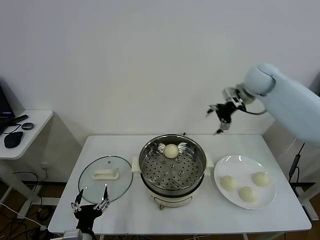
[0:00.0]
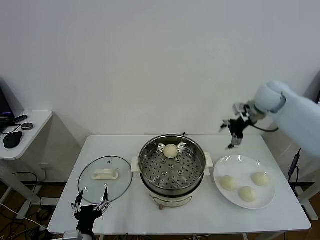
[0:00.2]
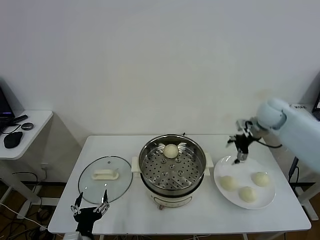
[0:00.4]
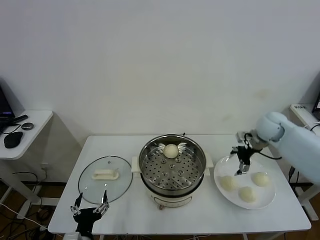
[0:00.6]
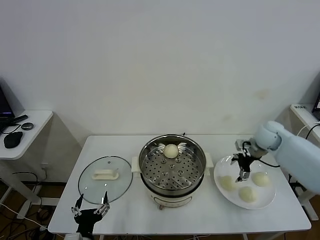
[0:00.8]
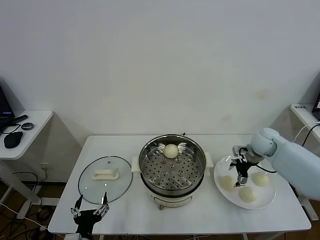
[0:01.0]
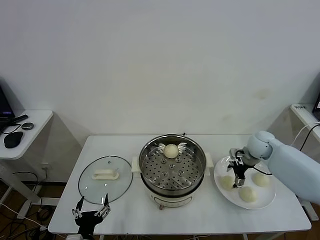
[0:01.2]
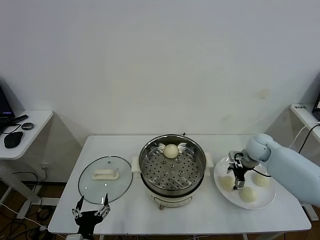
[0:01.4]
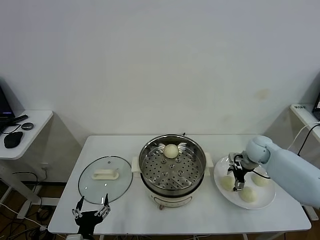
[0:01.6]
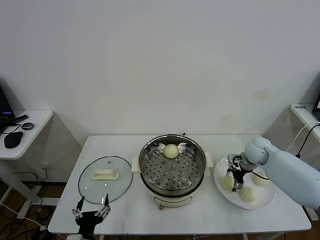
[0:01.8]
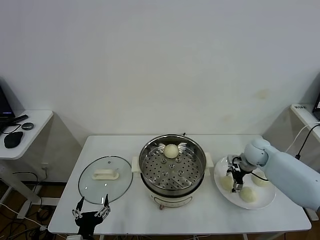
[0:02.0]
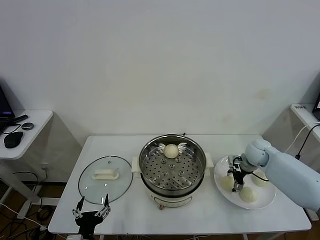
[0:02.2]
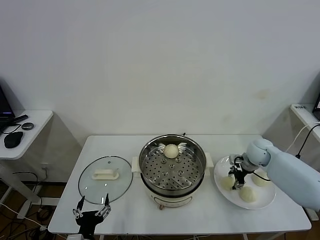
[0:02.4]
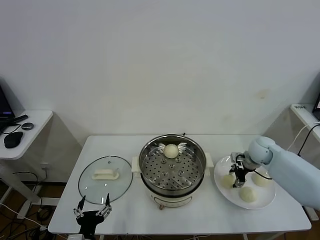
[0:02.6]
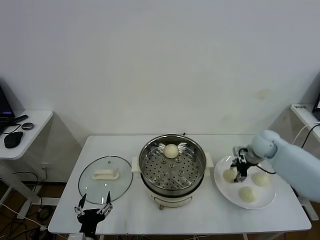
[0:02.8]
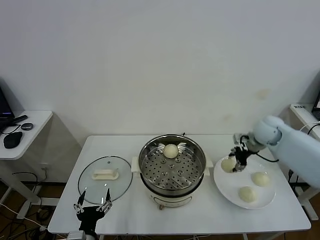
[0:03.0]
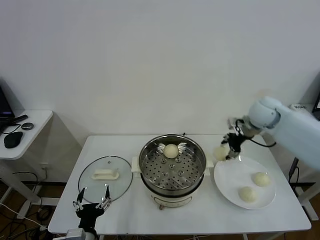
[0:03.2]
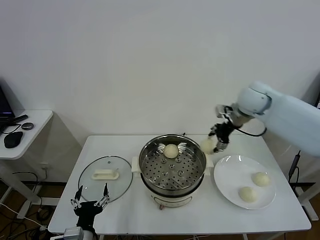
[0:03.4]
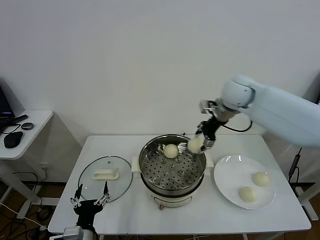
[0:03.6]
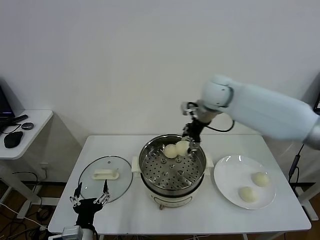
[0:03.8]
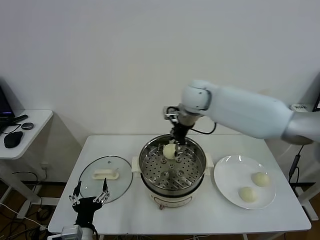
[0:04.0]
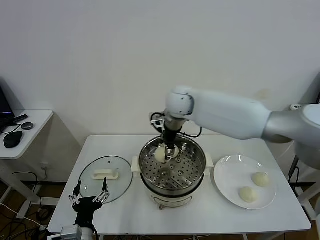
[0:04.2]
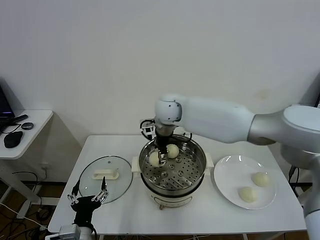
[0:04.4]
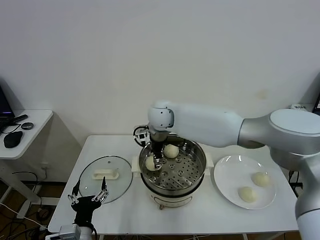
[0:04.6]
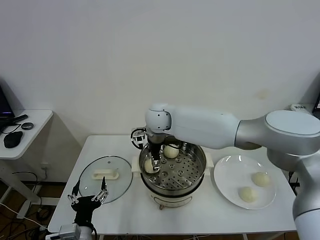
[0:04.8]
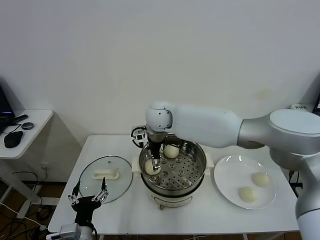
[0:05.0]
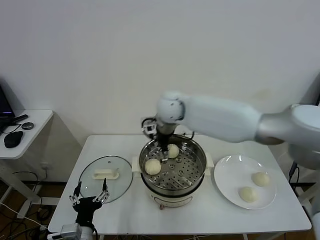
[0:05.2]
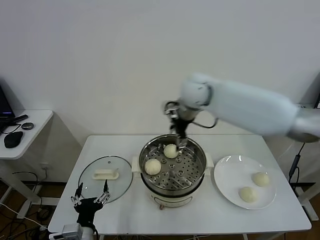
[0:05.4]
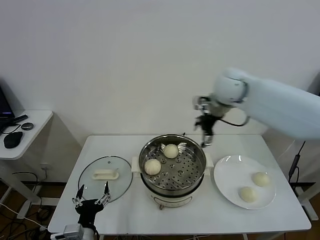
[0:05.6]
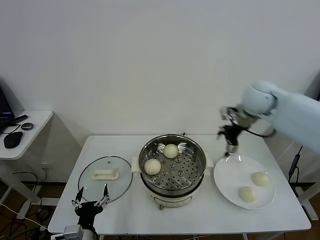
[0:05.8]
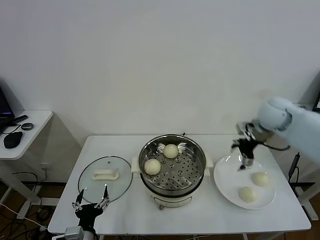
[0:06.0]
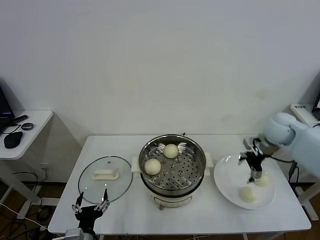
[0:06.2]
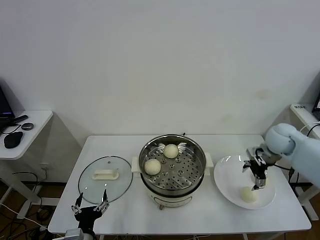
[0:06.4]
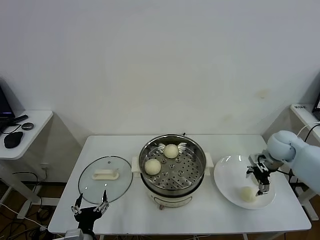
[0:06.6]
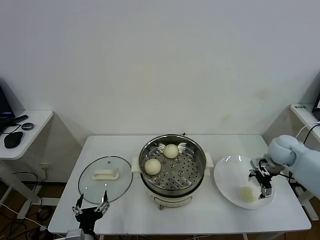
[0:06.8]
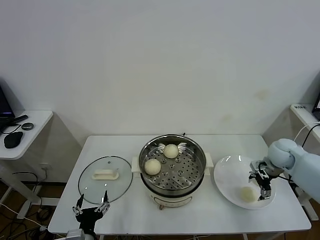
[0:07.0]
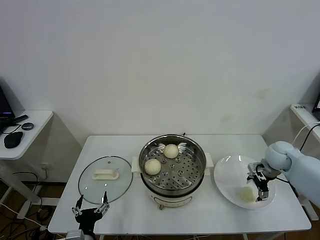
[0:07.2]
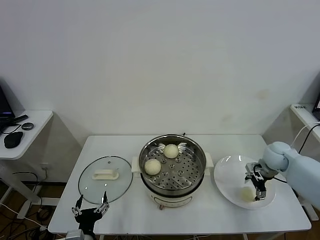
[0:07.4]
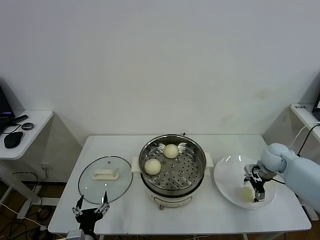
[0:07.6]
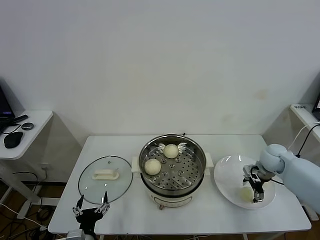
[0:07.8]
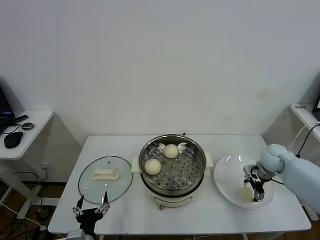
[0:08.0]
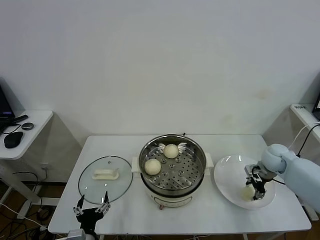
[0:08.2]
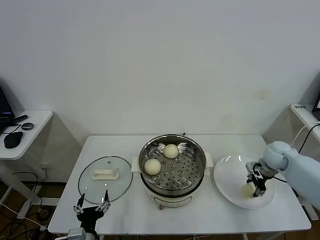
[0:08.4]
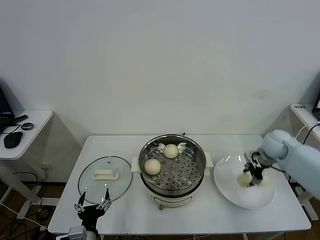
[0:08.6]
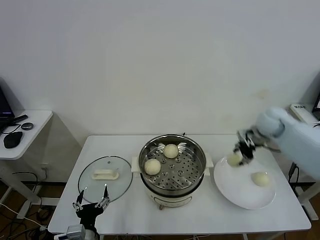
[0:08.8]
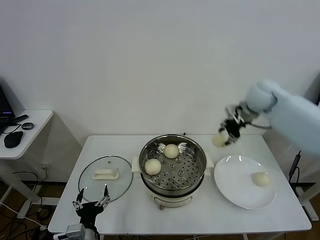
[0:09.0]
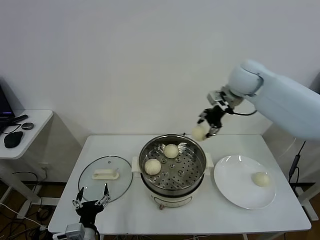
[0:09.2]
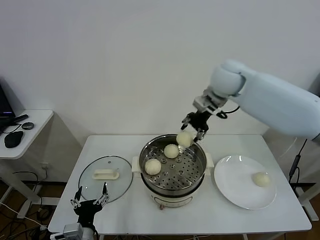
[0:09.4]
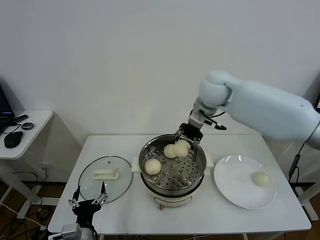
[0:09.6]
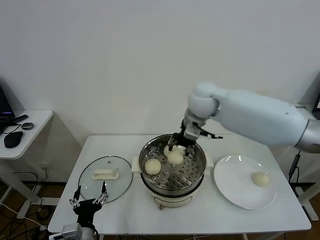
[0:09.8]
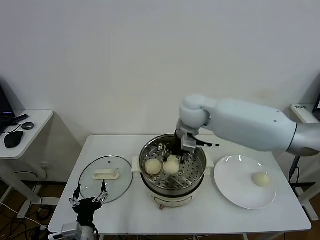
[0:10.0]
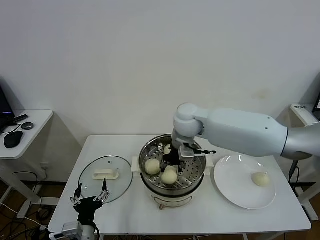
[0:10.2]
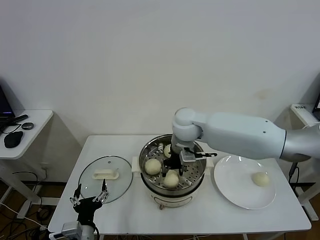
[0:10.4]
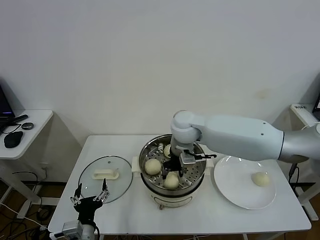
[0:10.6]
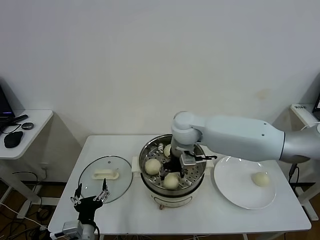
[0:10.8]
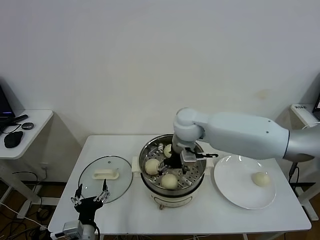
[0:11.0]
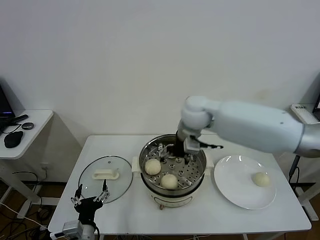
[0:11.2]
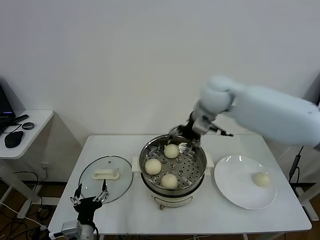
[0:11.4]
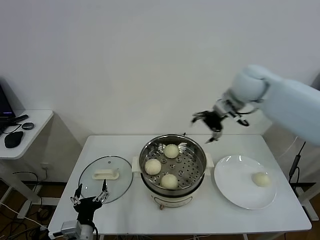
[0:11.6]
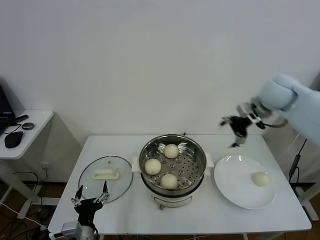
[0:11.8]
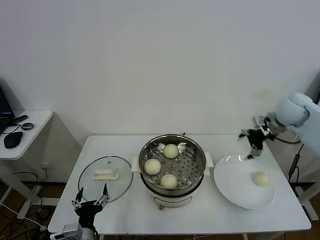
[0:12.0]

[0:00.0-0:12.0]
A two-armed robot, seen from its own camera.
Task of the whole recording: take steamed baozi put them in steamer.
Step, 0.0 to 2.4 s: Grasp the baozi in the plate with right gripper.
Step, 2.6 to 5.0 s: Place the baozi on the steamer with right gripper.
Step, 5.2 to 8.2 s: Grasp the baozi in the plate with right gripper.
Step, 8.4 to 11.2 s: Place the baozi on the steamer with right gripper.
0.0 to 1.6 s: The right gripper shifts approximately 25 cm downward.
1.6 to 3.0 s: The right gripper travels upward by roughly 10 cm, and closes.
3.0 to 4.4 s: The right gripper shifts some 35 cm to the left.
4.4 to 6.0 s: The right gripper shifts about 35 cm to the right, and opens its fingers.
6.0 to 7.6 s: The right gripper is displaced downward by about 15 cm.
7.6 to 9.0 s: The right gripper goes about 25 cm upward, to the left and forward, and closes up.
9.0 to 10.4 s: The right gripper travels to the left by some 25 cm.
10.4 to 12.0 s: The right gripper travels to the right by approximately 30 cm, and opens its fingers.

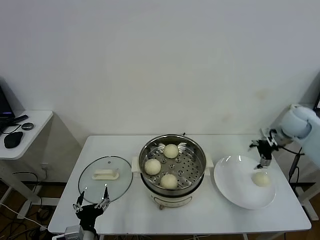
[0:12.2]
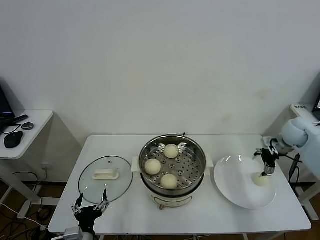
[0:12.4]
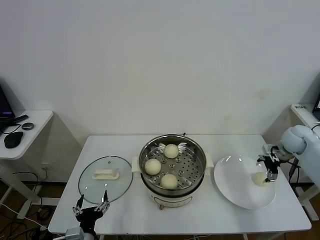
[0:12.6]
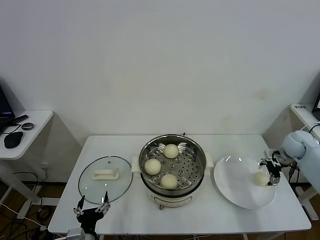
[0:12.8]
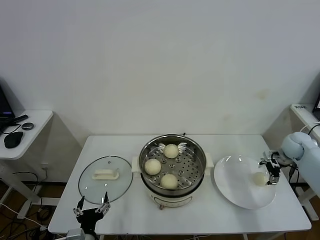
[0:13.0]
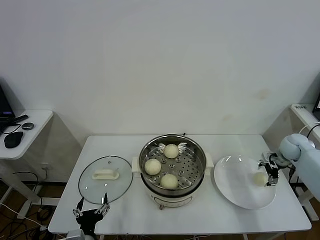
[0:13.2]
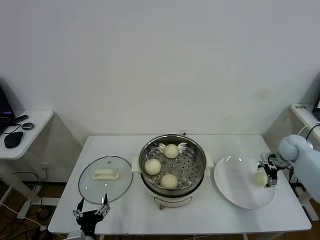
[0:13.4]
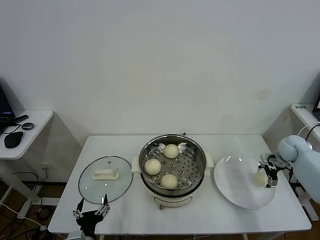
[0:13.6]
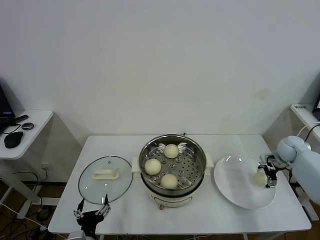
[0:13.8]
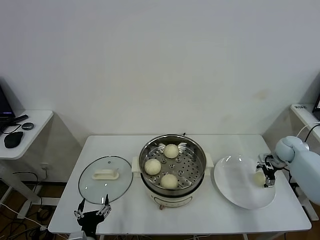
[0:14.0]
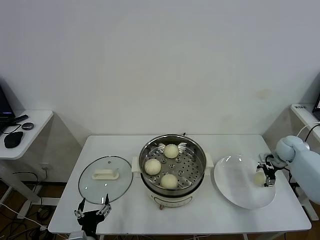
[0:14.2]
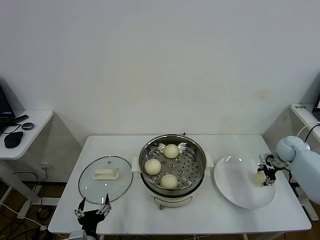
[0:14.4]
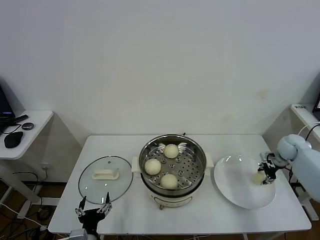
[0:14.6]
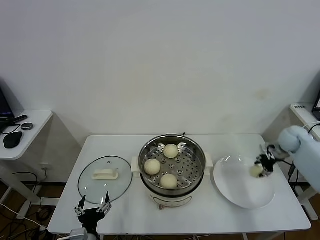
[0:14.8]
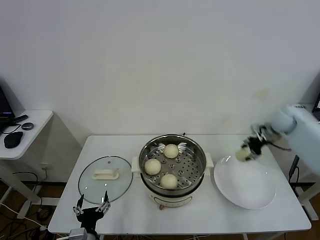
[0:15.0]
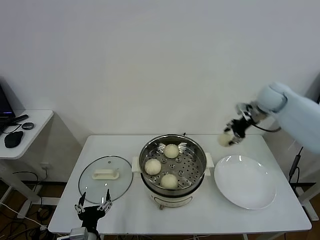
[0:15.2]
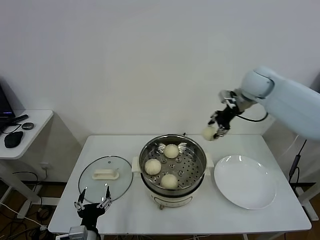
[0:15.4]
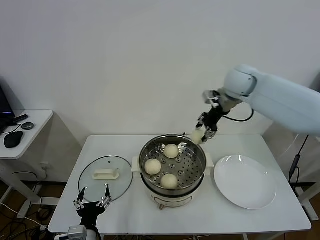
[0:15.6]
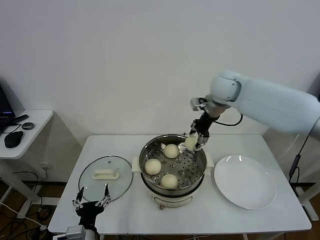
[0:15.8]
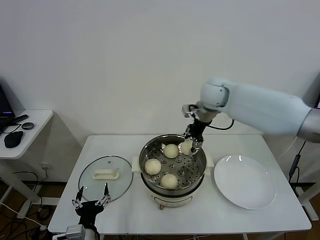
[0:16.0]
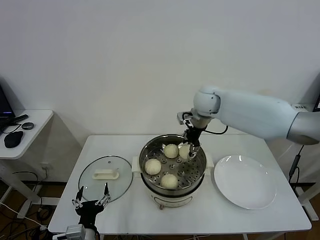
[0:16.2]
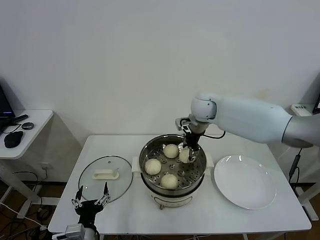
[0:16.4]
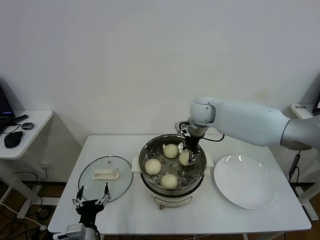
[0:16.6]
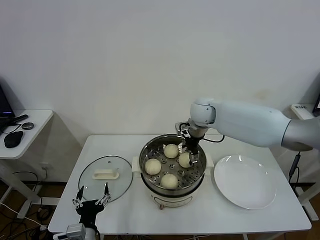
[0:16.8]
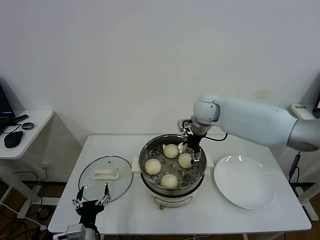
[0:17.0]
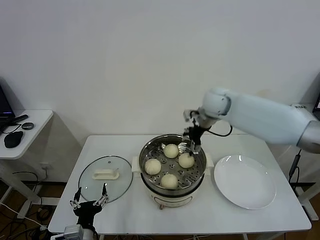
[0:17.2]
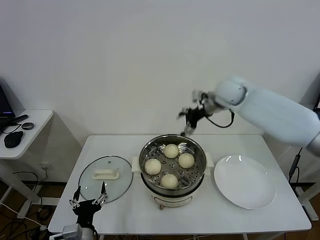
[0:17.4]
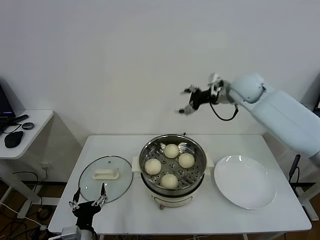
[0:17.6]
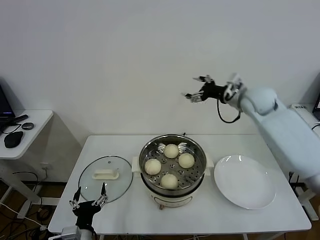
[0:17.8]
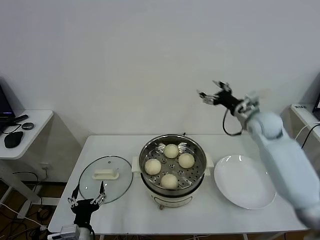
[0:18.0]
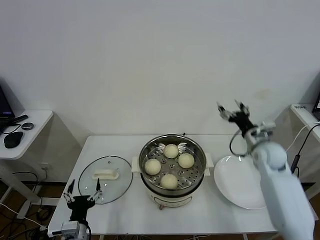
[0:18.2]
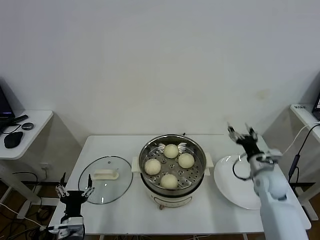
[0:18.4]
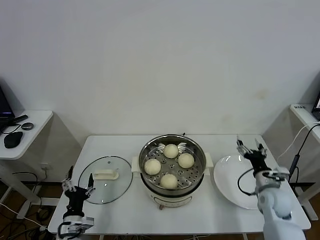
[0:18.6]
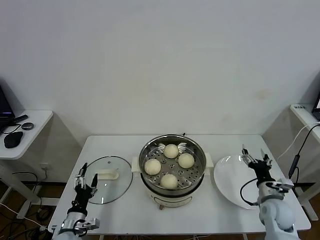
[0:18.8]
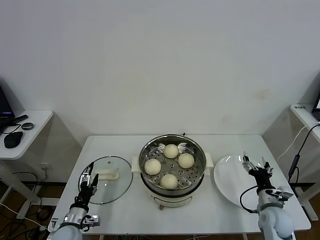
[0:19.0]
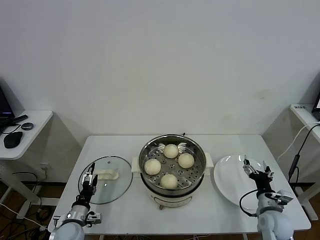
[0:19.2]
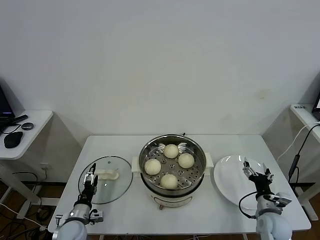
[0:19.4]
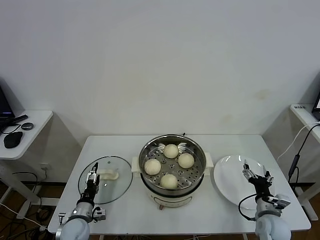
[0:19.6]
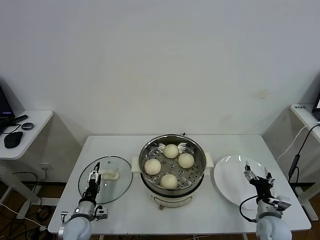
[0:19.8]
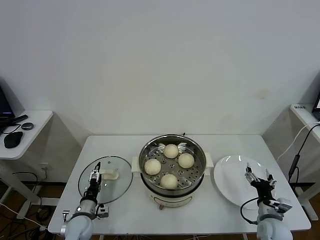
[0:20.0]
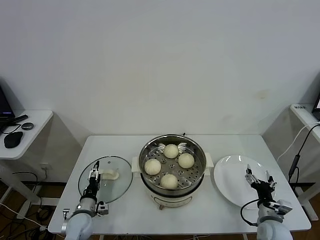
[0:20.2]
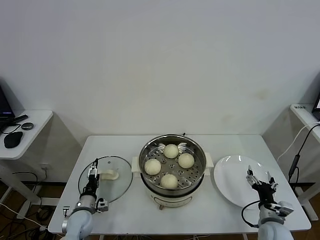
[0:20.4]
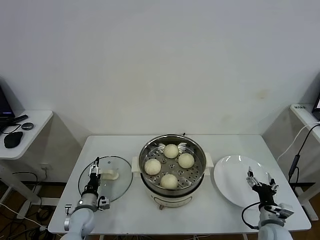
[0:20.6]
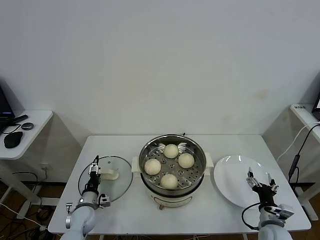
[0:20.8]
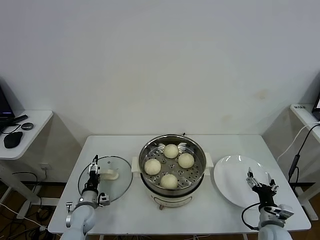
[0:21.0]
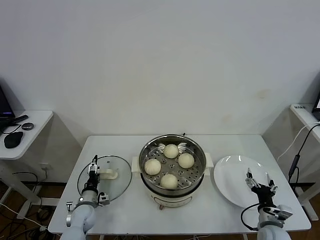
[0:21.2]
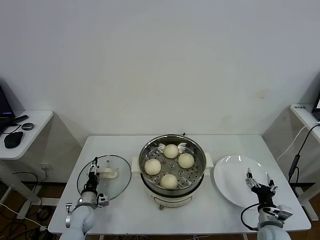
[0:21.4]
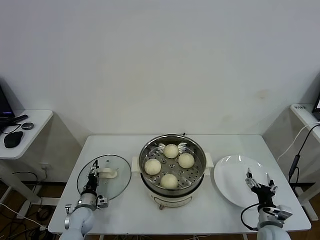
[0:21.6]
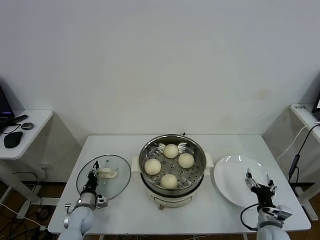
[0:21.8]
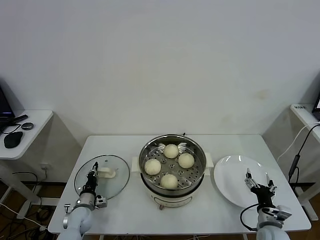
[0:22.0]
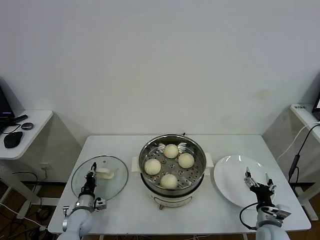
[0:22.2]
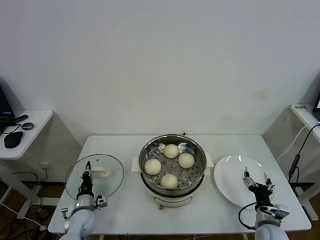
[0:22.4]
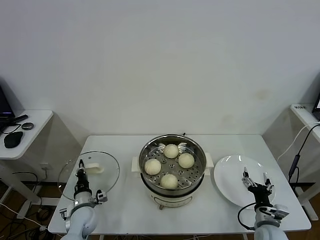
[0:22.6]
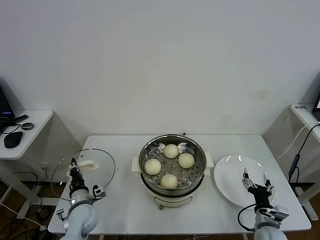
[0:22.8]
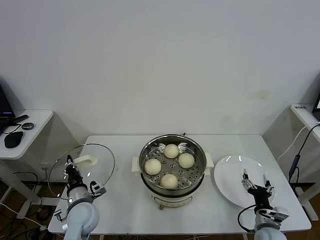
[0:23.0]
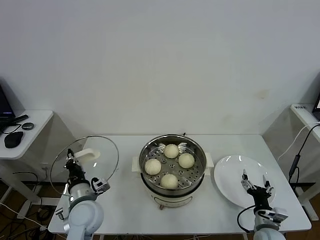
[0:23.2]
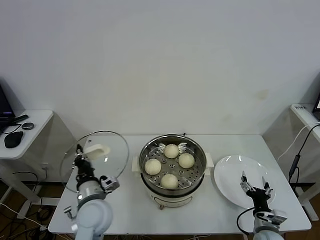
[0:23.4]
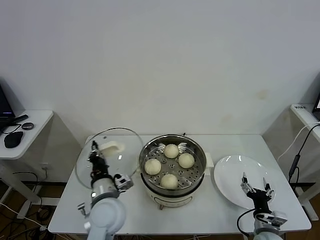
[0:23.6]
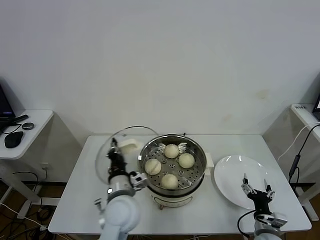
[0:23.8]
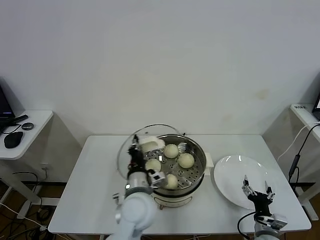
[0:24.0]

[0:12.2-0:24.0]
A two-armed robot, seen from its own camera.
Task of the whole recording: take steamed baozi put them in steamer.
Step, 12.2 to 14.4 s: Grasp the baozi in the plate with right gripper.
Step, 14.8 to 17.0 s: Place the baozi on the steamer with right gripper.
Step, 17.4 to 22.2 s: Grasp the pot lid with left gripper.
12.2 to 13.6 s: The right gripper shifts about 15 cm downward and to the right.
13.6 to 15.2 s: The right gripper travels upward and to the left by some 20 cm, and closes up.
15.2 to 16.6 s: The right gripper shifts some 25 cm to the left.
16.6 to 18.2 s: The right gripper heads to the right and backward, covering some 25 cm, and opens.
18.2 to 19.6 s: The right gripper travels backward and downward by about 25 cm, while the left gripper goes some 15 cm forward, downward and to the left.
19.6 to 21.0 s: The left gripper goes some 5 cm forward.
21.0 to 22.6 s: The left gripper closes its fingers.
22.6 to 24.0 s: The left gripper goes some 30 cm to the right and upward.
